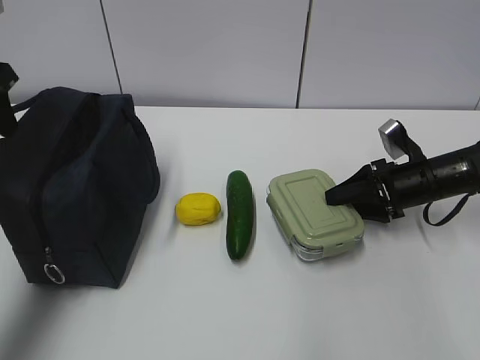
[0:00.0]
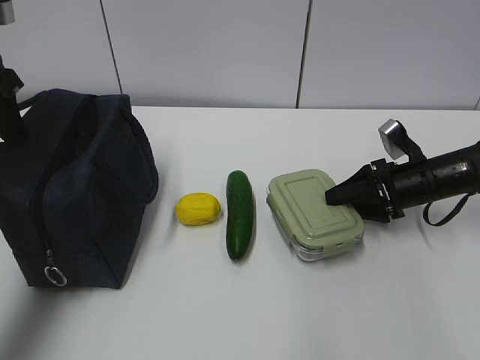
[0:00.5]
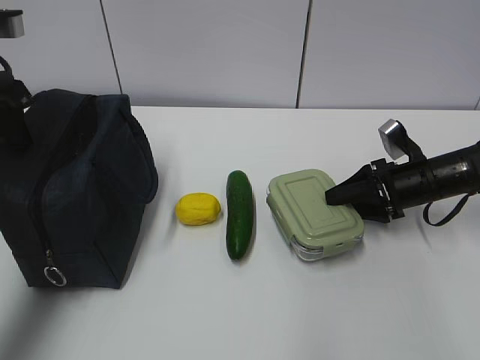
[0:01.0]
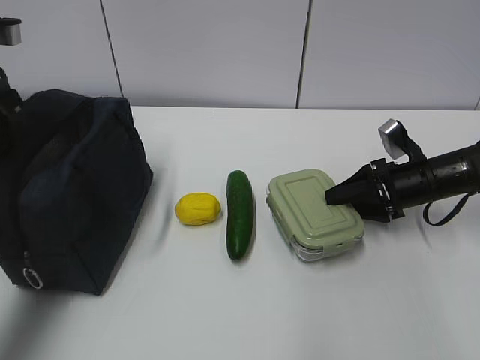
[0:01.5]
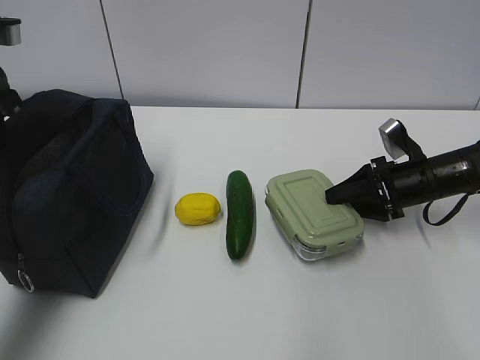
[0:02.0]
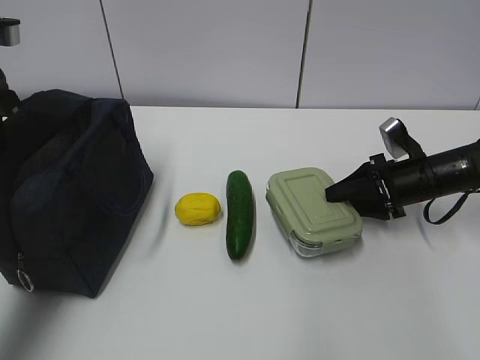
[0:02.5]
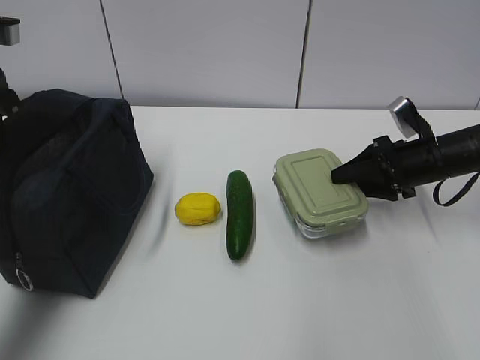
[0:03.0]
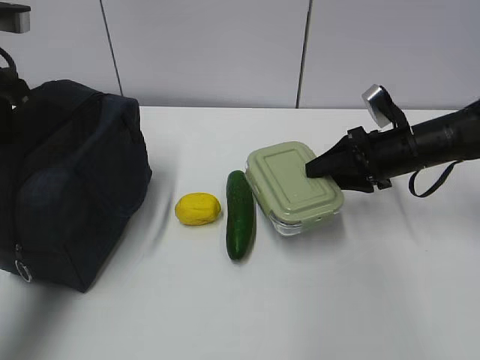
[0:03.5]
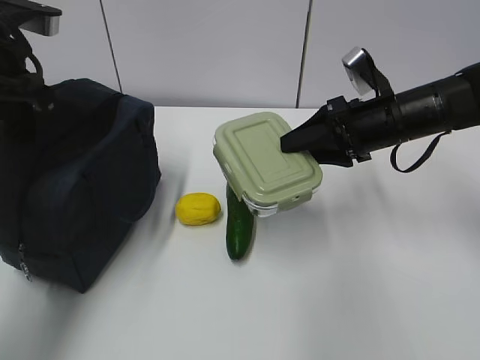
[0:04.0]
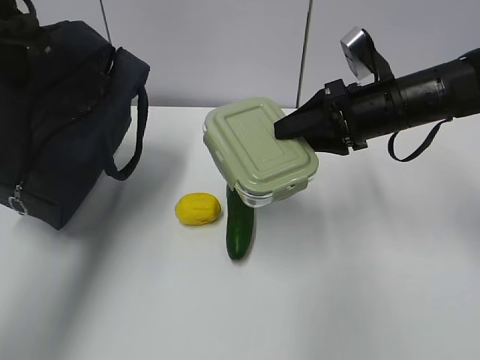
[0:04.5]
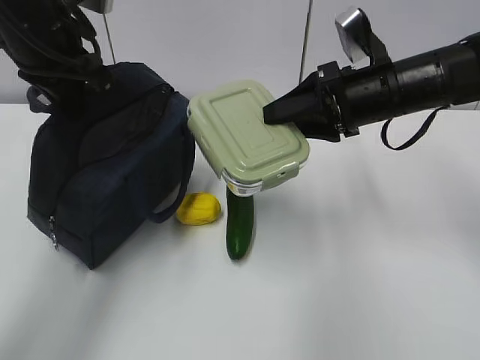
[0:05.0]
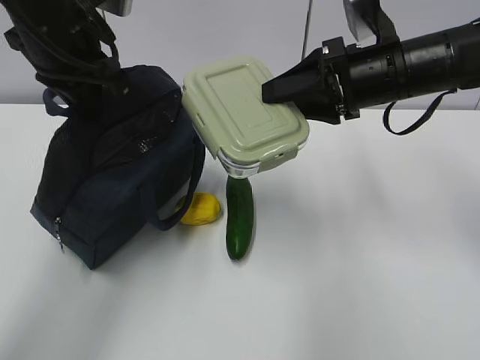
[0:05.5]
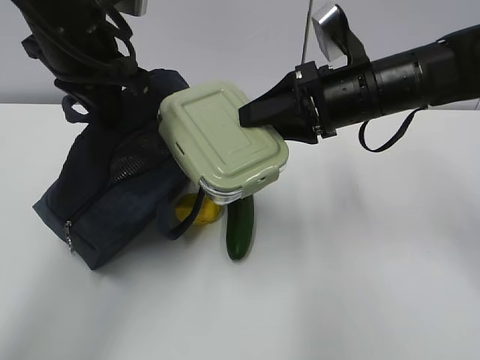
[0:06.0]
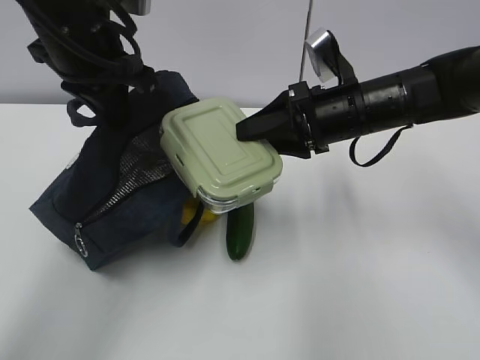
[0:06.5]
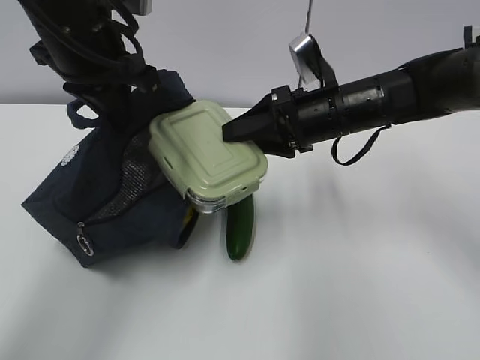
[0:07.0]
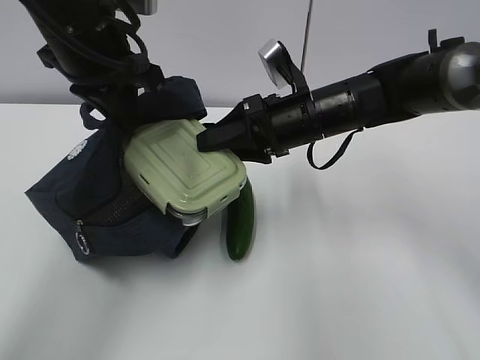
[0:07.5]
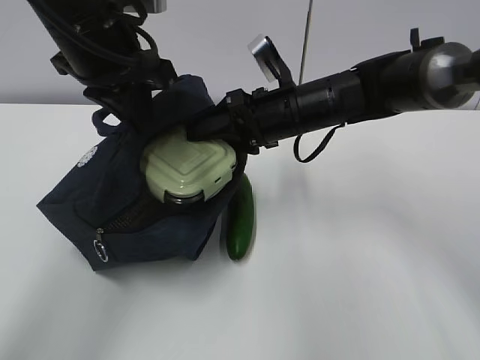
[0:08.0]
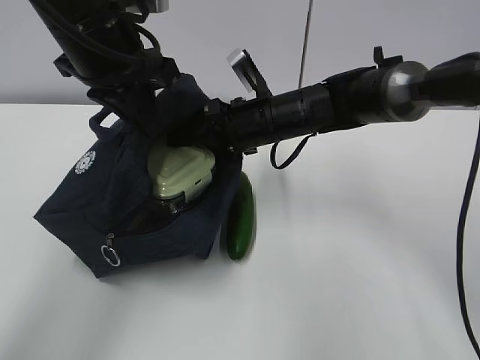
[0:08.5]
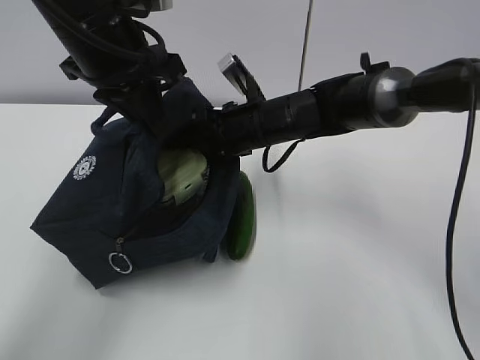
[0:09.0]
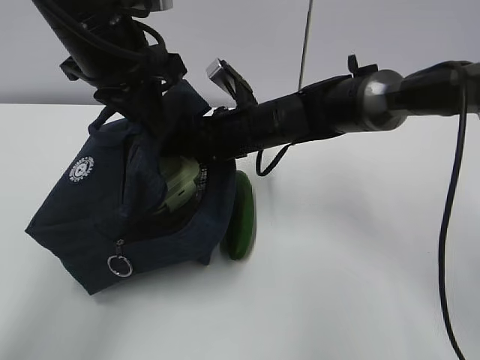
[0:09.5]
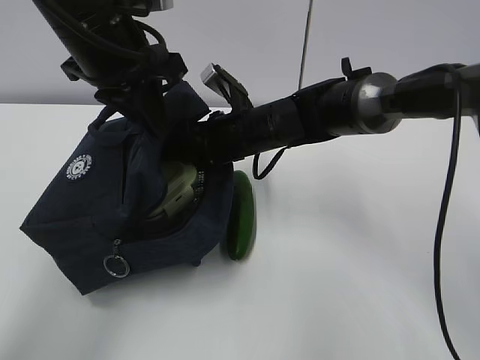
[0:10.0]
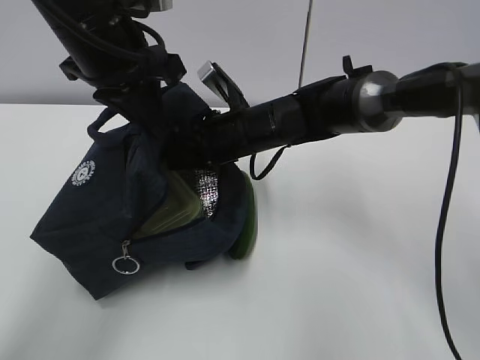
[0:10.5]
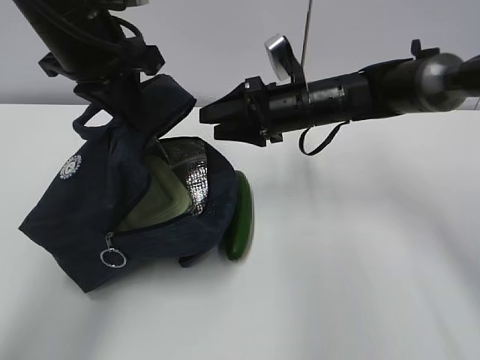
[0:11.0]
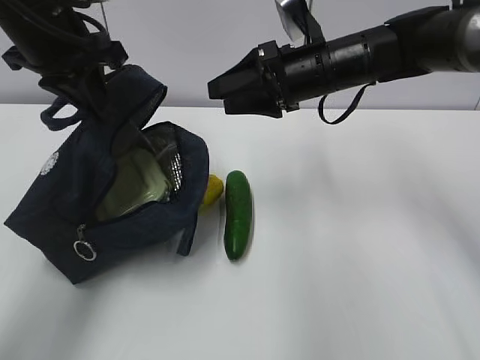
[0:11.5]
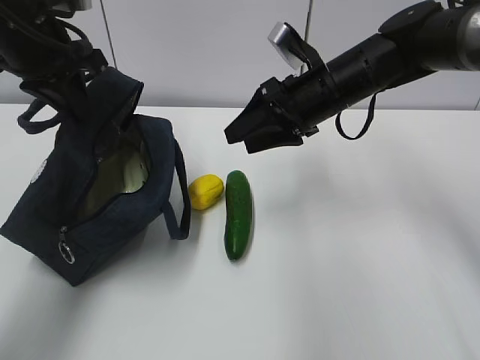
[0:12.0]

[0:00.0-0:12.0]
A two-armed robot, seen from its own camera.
Step, 0:00.0 to 0:03.0: Grab the lunch bag with your left hand.
Step, 0:03.5 to 0:06.5: Place it into the bag with your right hand.
Step, 0:07.0 to 0:09.5: Grab the cucumber with your right hand.
0:00.0 to 0:02.0: The left gripper closes up.
0:02.0 to 0:04.0: The right gripper heads upward and to the left, covering approximately 15 cm.
0:04.0 to 0:06.0: The left gripper heads to the right, covering approximately 10 cm; the right gripper moves upward and to the left, some 5 cm.
0:06.0 to 0:08.0: The right gripper moves to the left, approximately 5 cm.
0:08.0 to 0:10.0: The right gripper heads to the left, covering roughly 5 cm.
0:10.0 to 0:12.0: The left gripper moves to the left, some 10 cm; the right gripper goes some 10 cm to the right and upward.

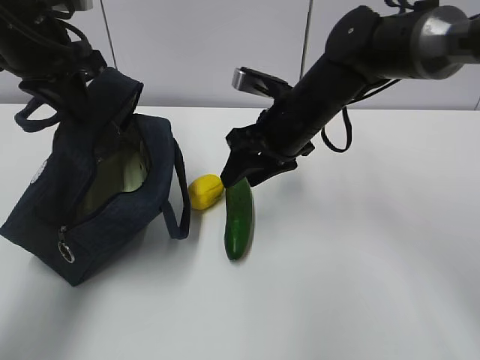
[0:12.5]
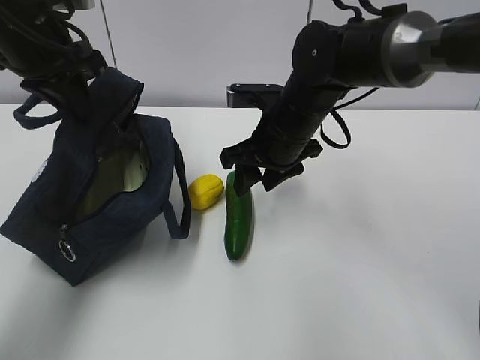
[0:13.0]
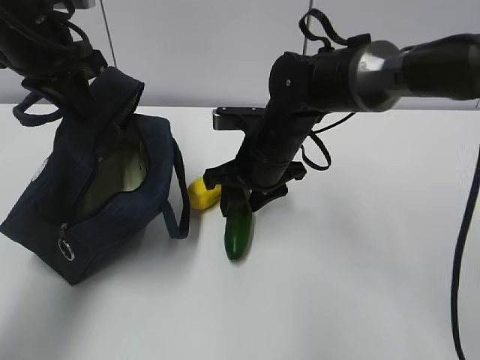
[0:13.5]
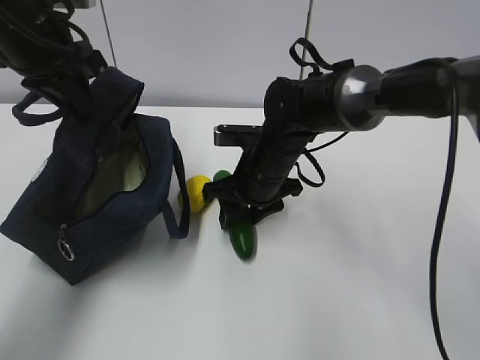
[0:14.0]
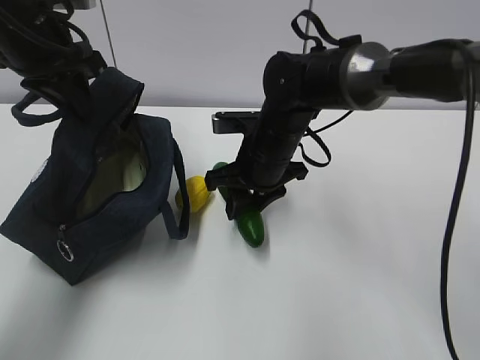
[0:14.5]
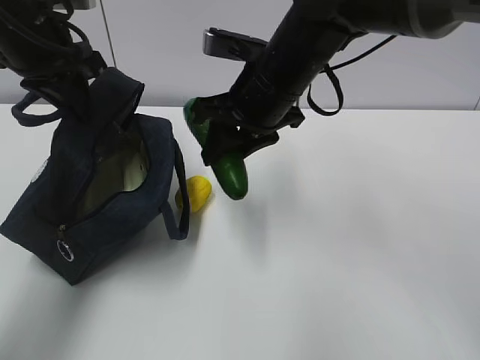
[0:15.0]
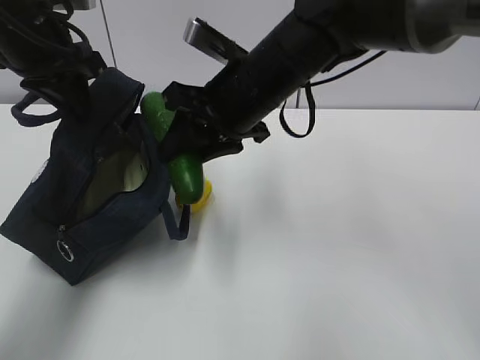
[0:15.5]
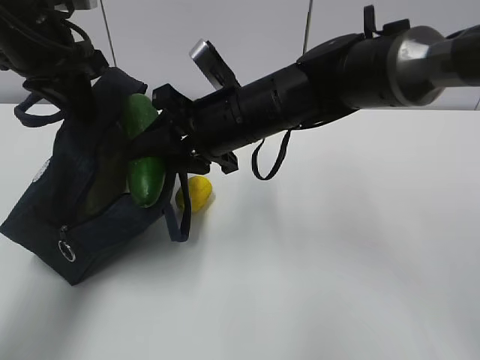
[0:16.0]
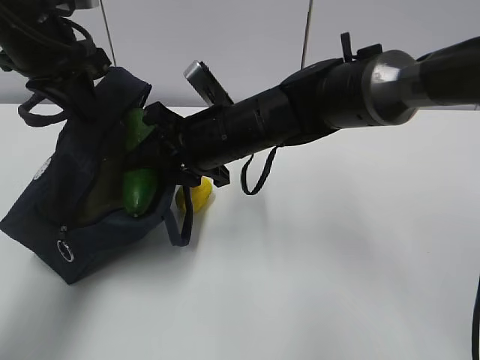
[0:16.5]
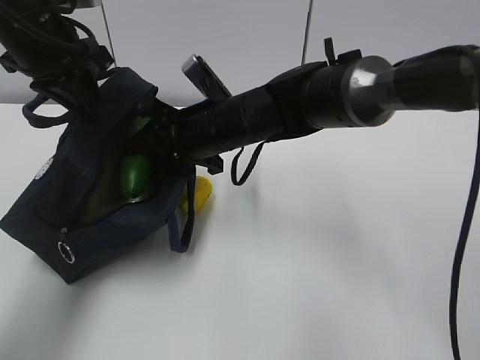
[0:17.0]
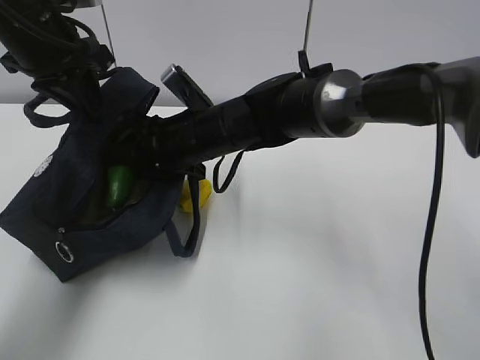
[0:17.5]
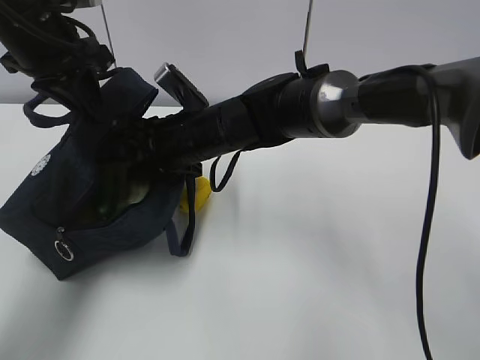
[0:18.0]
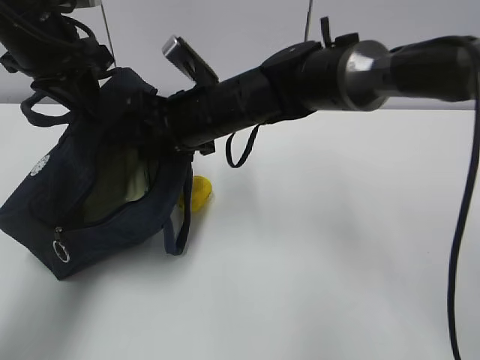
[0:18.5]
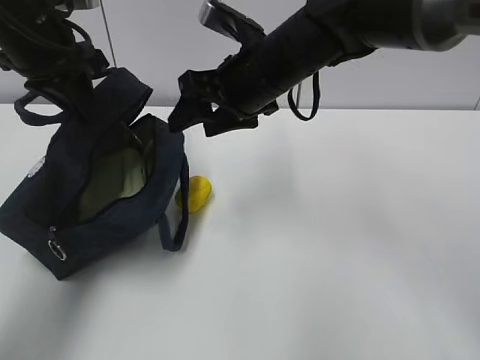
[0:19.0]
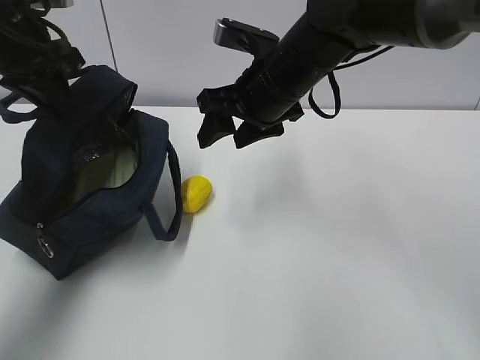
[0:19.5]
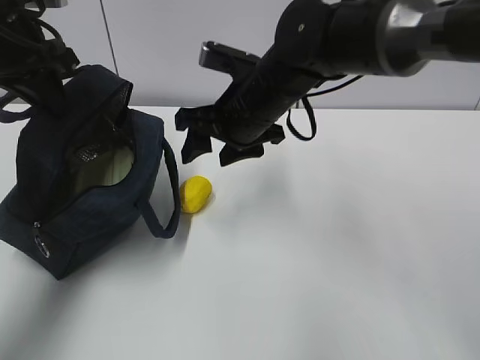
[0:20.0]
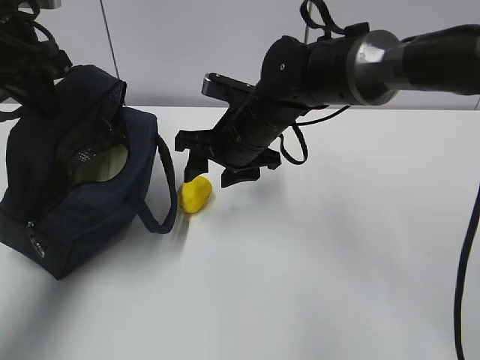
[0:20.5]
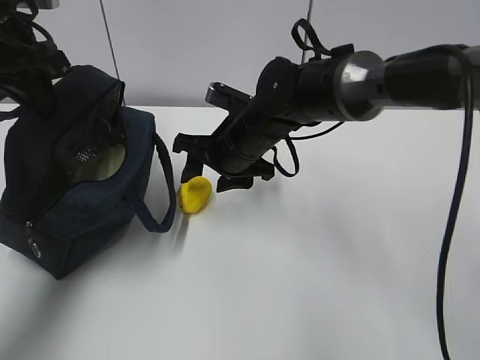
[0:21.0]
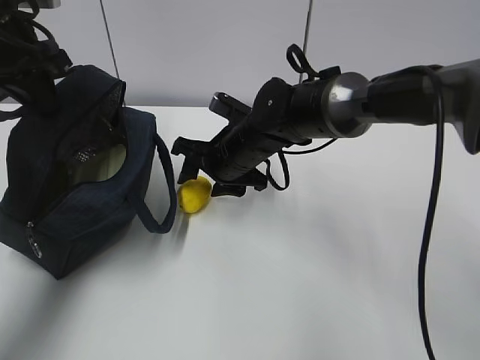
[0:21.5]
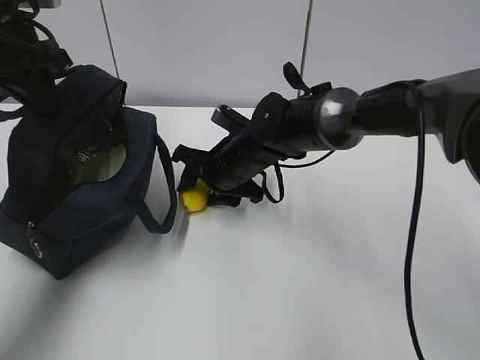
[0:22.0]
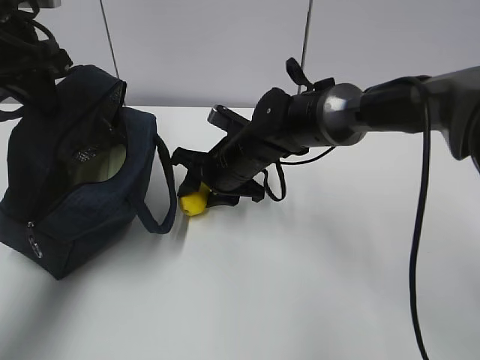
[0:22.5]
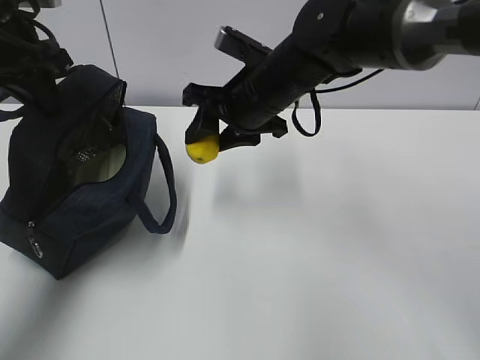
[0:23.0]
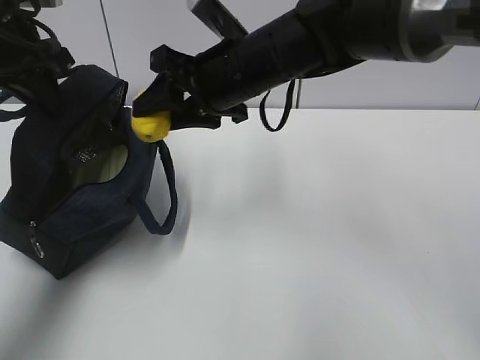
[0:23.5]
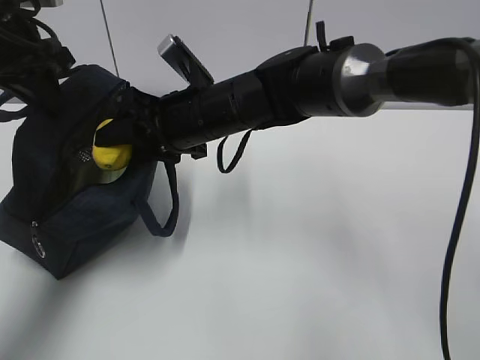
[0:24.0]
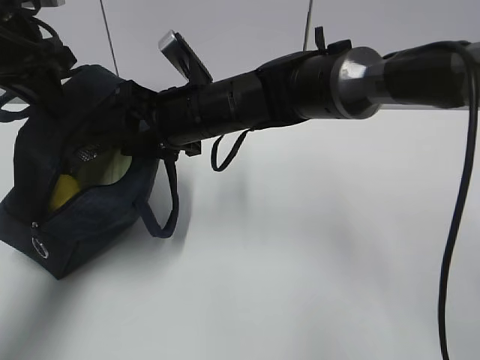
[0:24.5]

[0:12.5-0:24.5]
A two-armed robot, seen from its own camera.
Step, 0:14.0 to 0:16.5: Grab the lemon with your right hand.
Step, 0:19.0 to 0:19.5: Grab the lunch bag with your right hand.
Step, 0:20.5 to 0:22.5: Move the lunch bag to the right.
0:12.5 to 0:14.5: The right gripper shifts by about 5 cm.
0:16.5 to 0:18.5: The right gripper opens up.
0:20.5 to 0:22.5: The right gripper travels downward by about 5 cm.
0:22.5 to 0:24.5: The right gripper heads upward, covering about 10 cm.

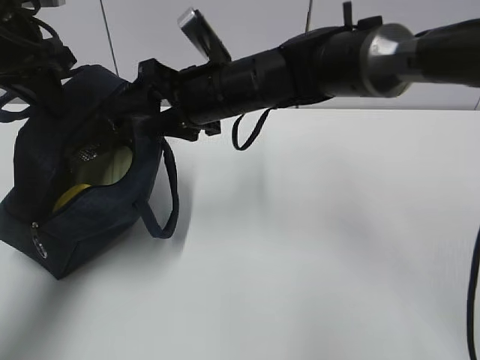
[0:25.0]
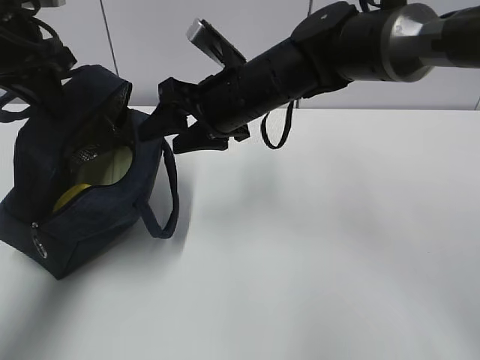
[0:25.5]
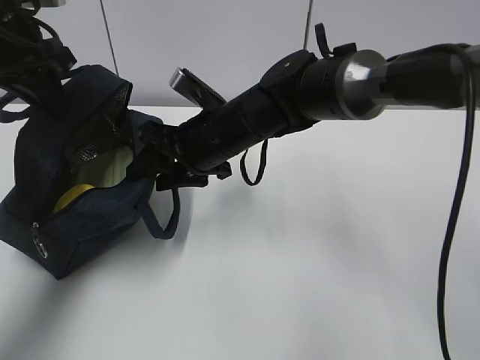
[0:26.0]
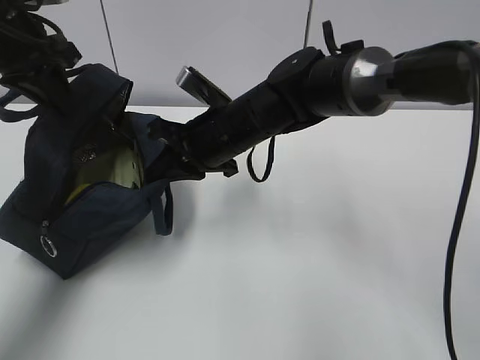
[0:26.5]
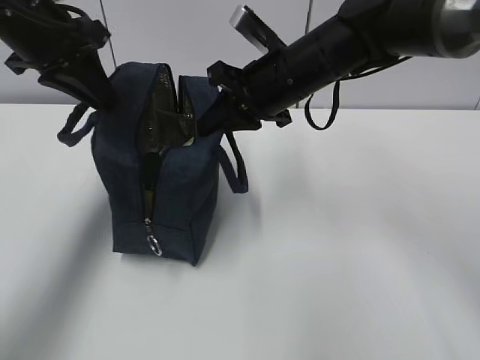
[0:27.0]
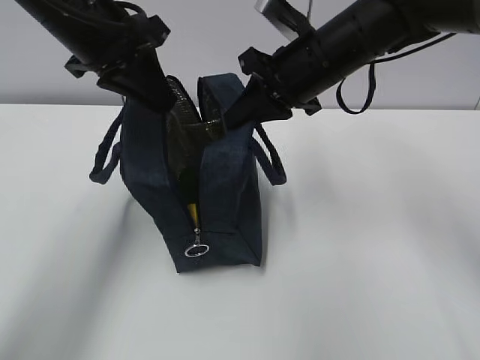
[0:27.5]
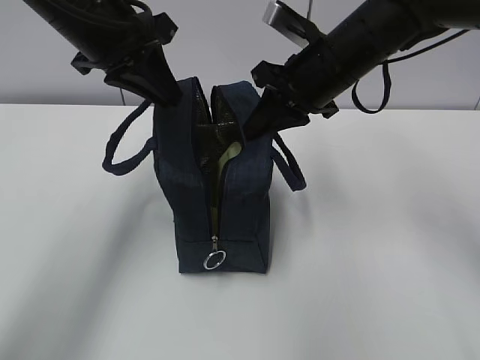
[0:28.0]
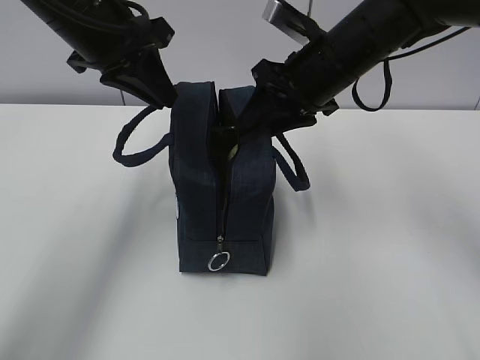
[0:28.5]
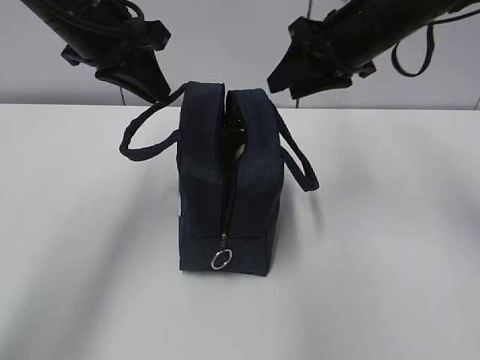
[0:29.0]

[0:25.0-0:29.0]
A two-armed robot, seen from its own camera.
0:25.0 to 0:27.0: The right gripper shifts approximately 5 cm to the right, and closes up.
0:27.0 to 0:29.0: The right gripper heads to the right and upward, covering some 10 cm, and opens. The left gripper shifts roughly 5 cm to the right.
